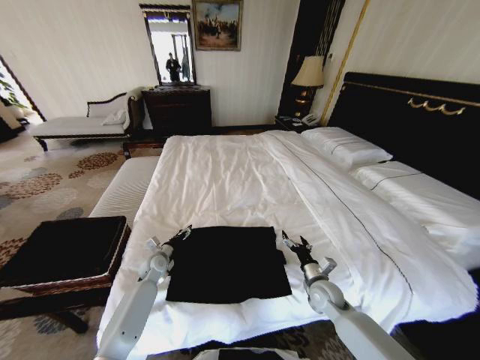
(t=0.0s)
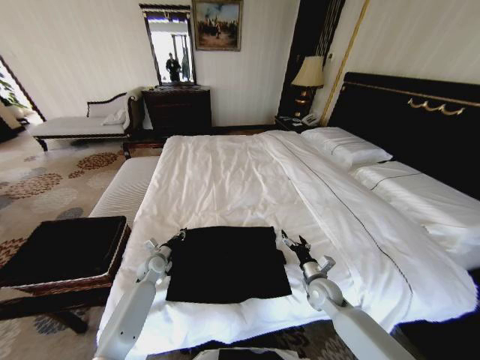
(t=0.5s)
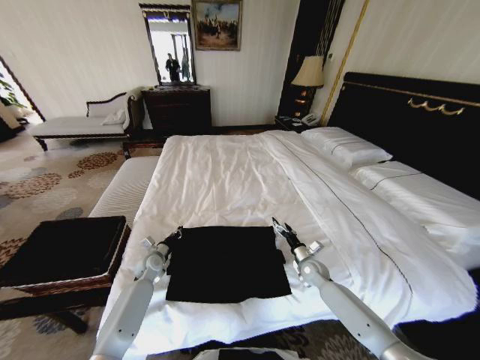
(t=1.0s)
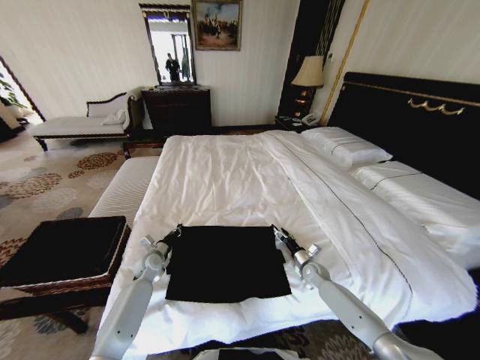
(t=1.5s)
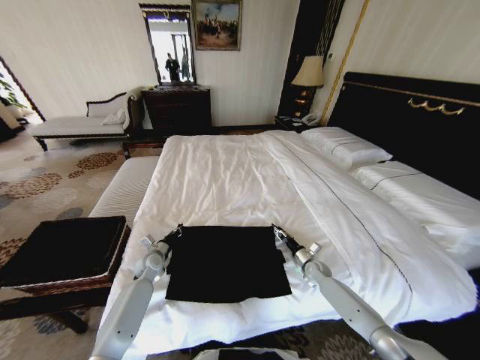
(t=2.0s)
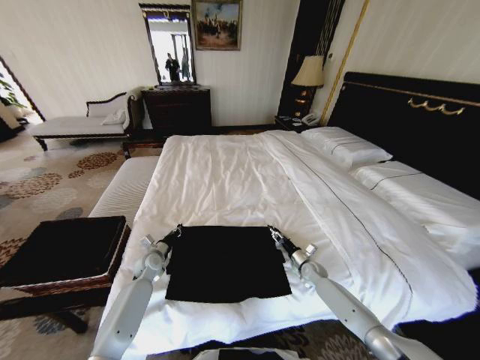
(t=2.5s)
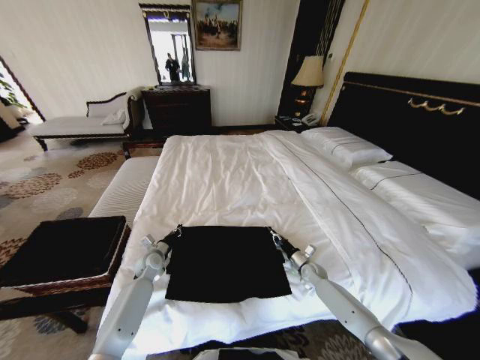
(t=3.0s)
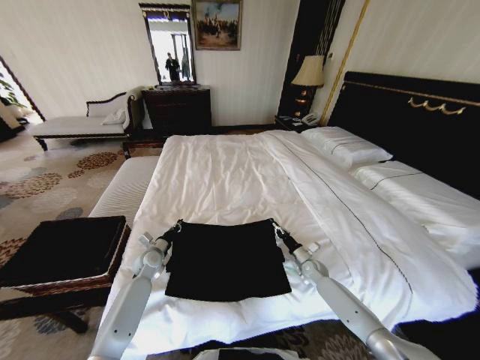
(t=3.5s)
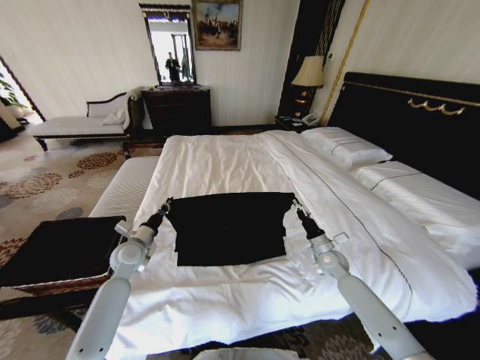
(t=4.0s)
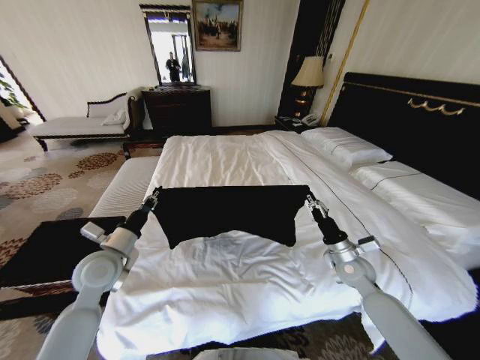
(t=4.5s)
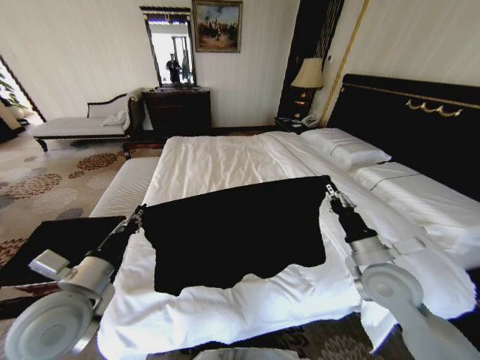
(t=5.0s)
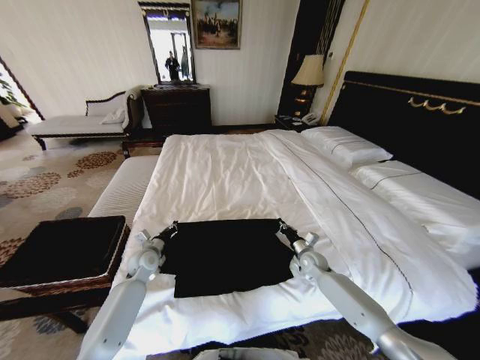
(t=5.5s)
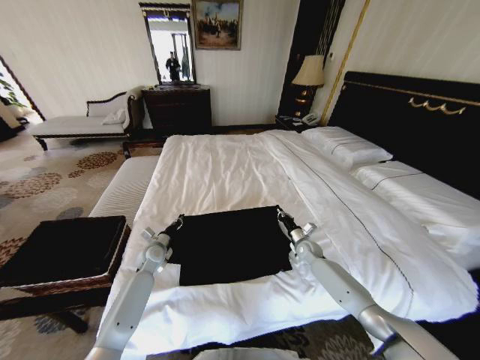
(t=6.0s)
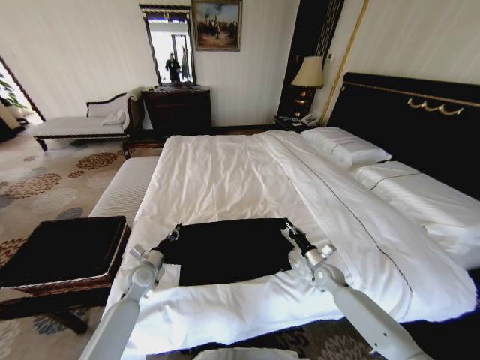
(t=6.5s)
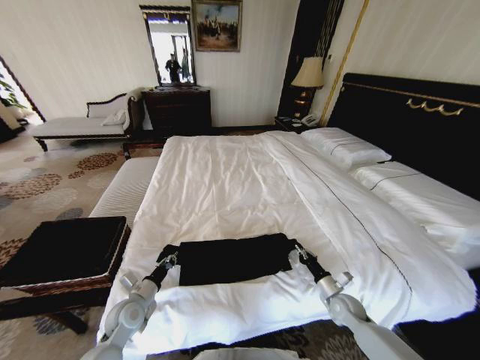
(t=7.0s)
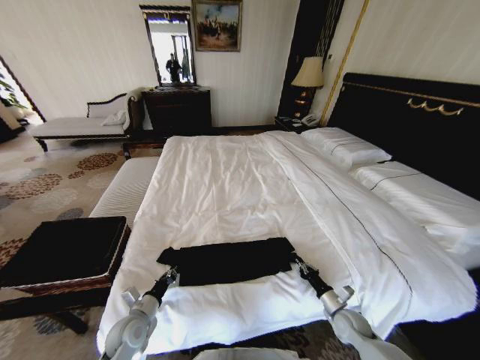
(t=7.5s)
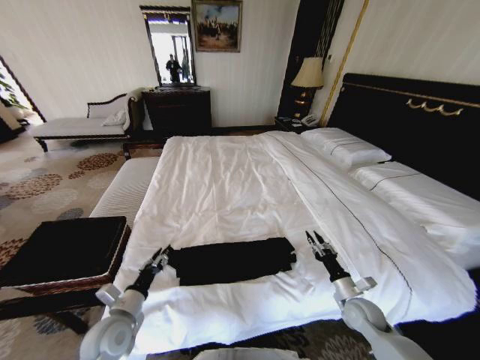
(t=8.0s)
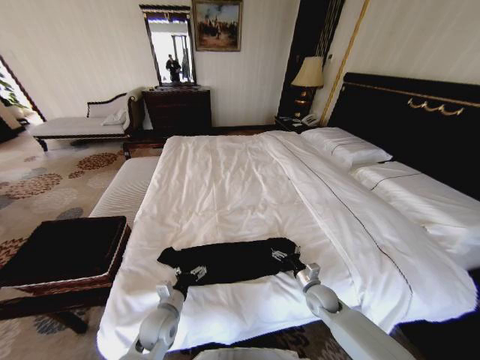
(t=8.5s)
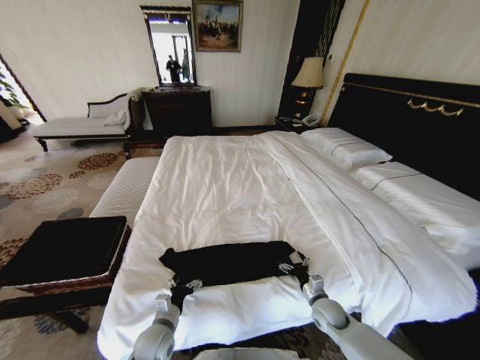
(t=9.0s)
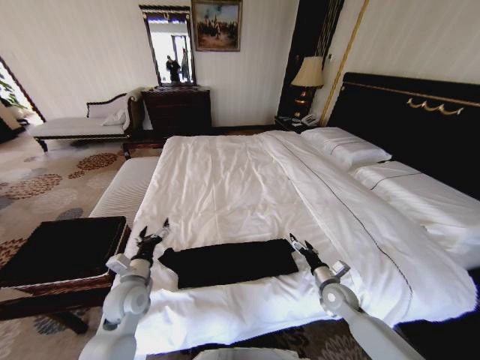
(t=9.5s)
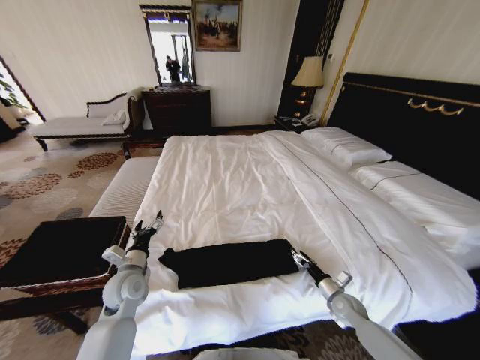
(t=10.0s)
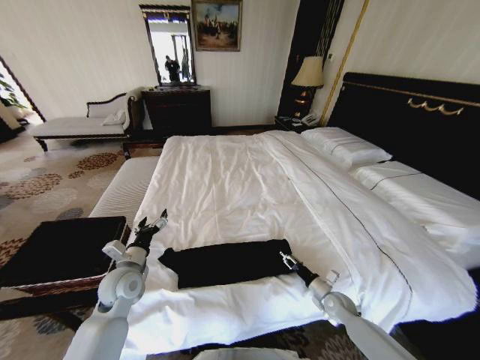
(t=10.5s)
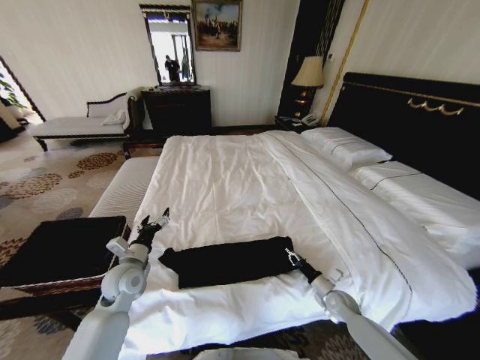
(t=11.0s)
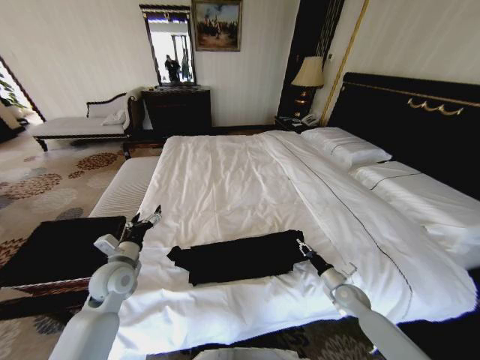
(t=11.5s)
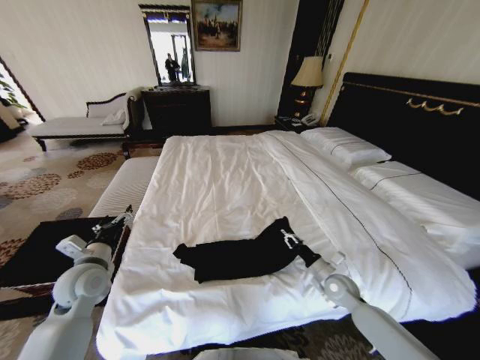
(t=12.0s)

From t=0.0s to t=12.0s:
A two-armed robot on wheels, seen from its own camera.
Task of the whole recording: Fold the clothes on the bed and place them into the basket.
From t=0.0s to t=2.0s: The right gripper goes roughly 15 cm forward, downward and to the right, and closes up, while the left gripper closes its fingers.
From t=2.0s to t=4.0s: Both grippers move upward, about 10 cm. The right gripper closes.
From t=4.0s to t=6.0s: The right gripper goes some 5 cm downward, and reaches some 15 cm backward, then returns. Meanwhile the left gripper goes some 10 cm downward, and reaches about 20 cm backward, then returns.
From t=6.0s to t=8.0s: The two grippers go approximately 25 cm backward. The left gripper opens up, while the right gripper opens up.
From t=8.0s to t=10.0s: The right gripper heads downward, covering about 5 cm, moves roughly 10 cm to the left and comes back, and opens its fingers, while the left gripper goes approximately 10 cm forward, travels downward and back again, some 10 cm each way, and opens.
From t=10.0s to t=12.0s: The left gripper heads to the left and upward, covering approximately 10 cm. The right gripper goes about 10 cm upward, and closes its fingers.

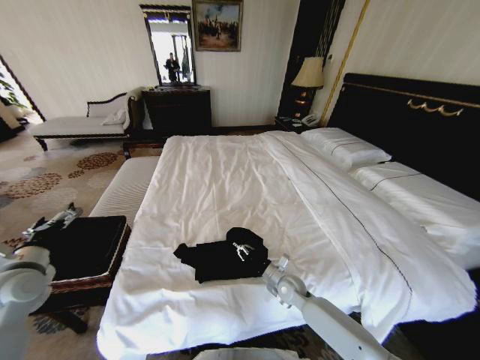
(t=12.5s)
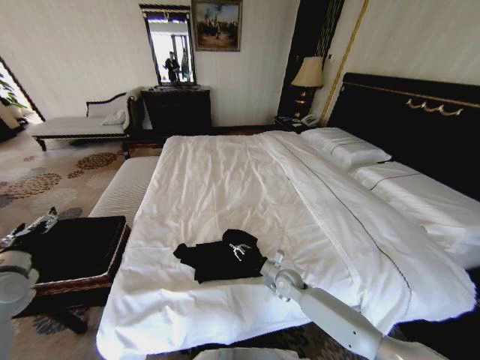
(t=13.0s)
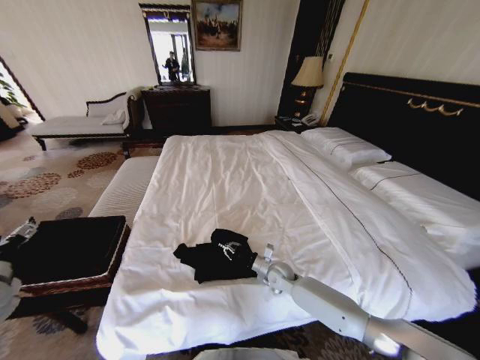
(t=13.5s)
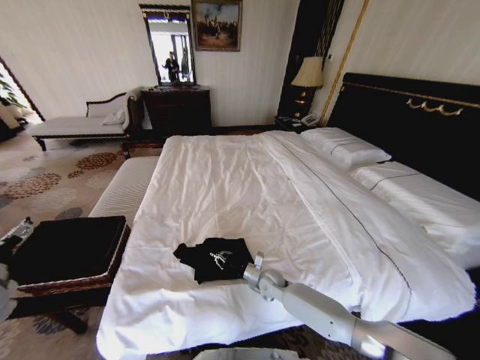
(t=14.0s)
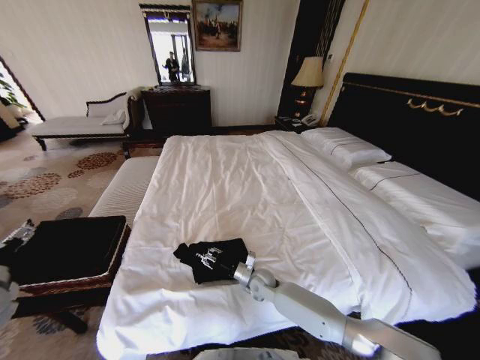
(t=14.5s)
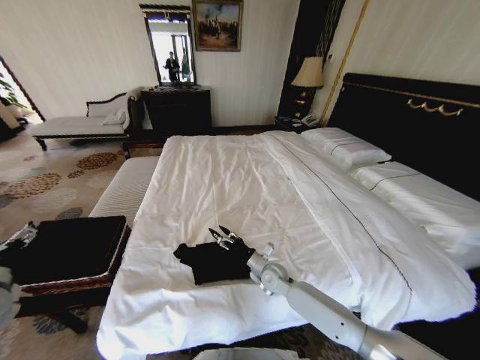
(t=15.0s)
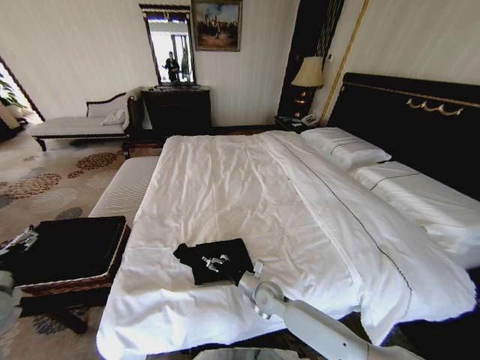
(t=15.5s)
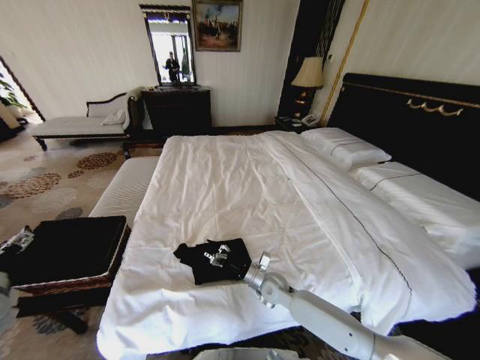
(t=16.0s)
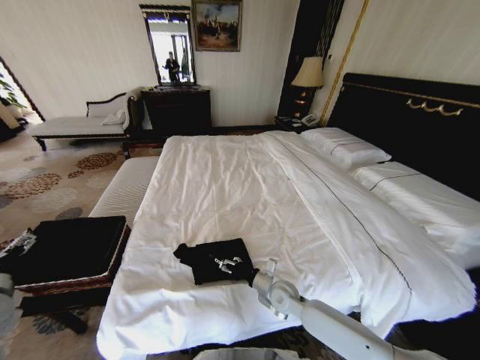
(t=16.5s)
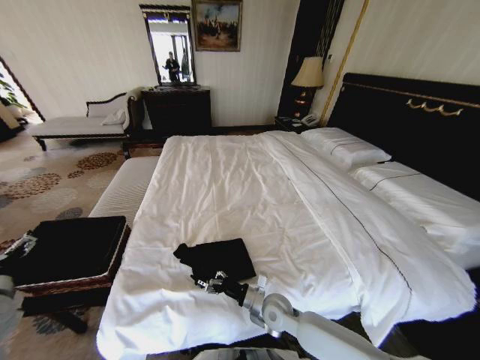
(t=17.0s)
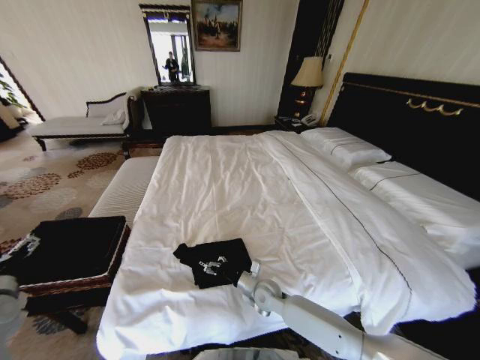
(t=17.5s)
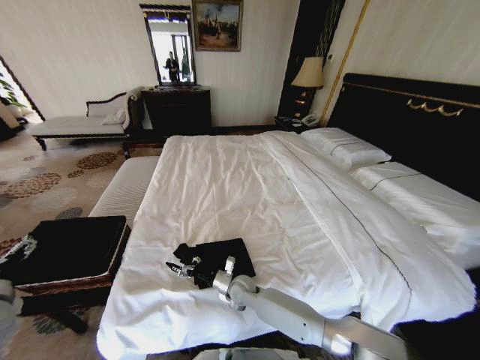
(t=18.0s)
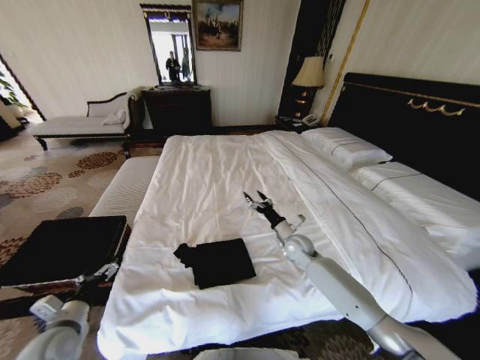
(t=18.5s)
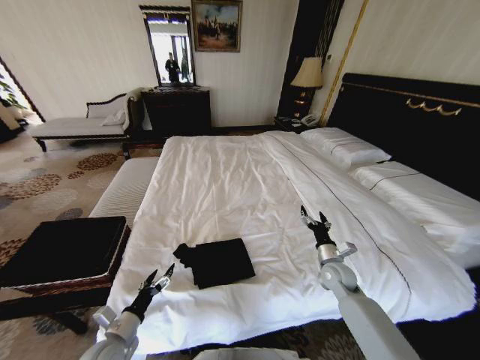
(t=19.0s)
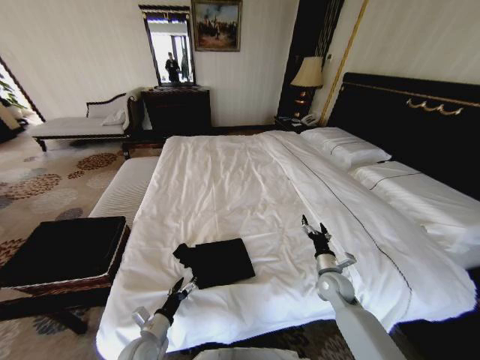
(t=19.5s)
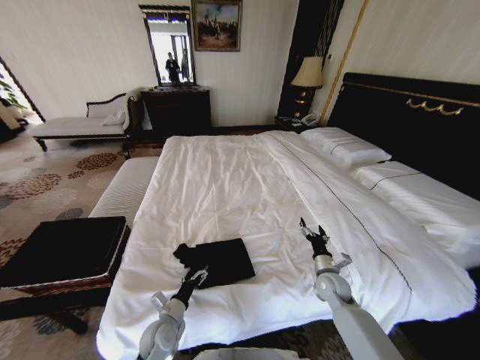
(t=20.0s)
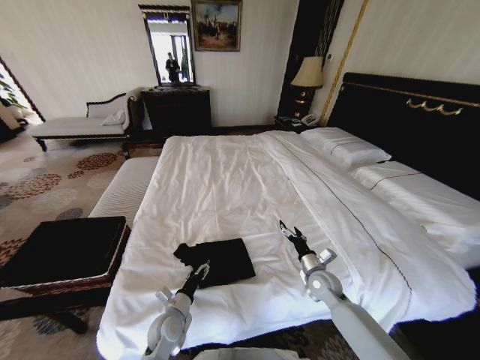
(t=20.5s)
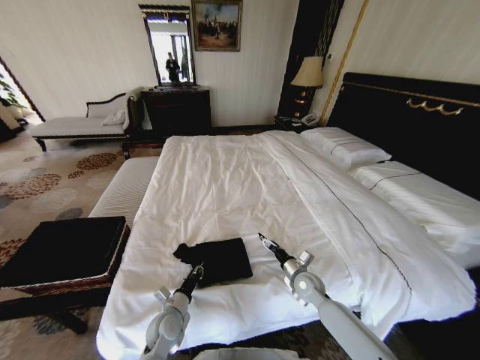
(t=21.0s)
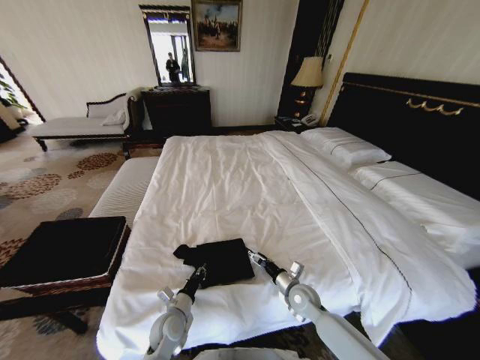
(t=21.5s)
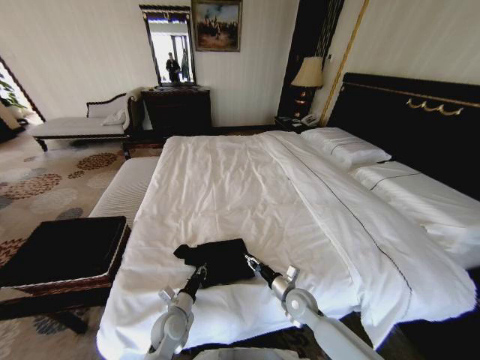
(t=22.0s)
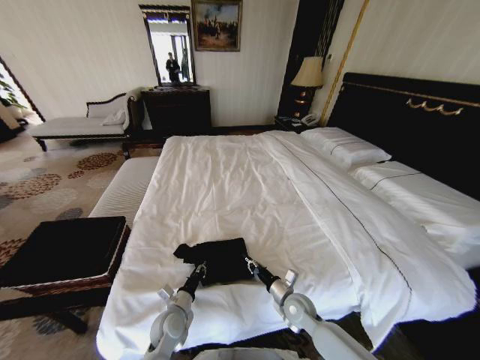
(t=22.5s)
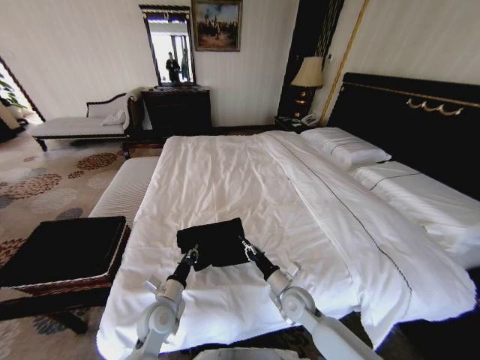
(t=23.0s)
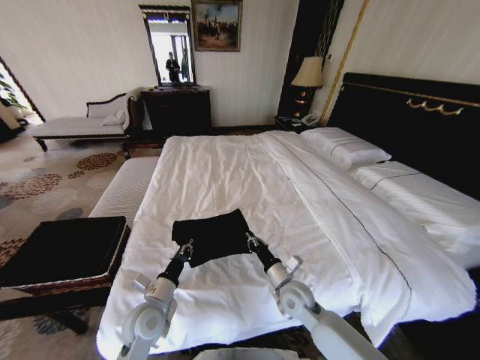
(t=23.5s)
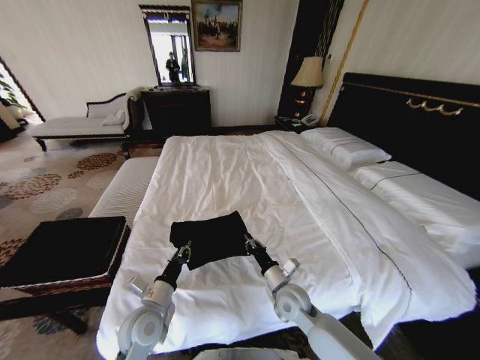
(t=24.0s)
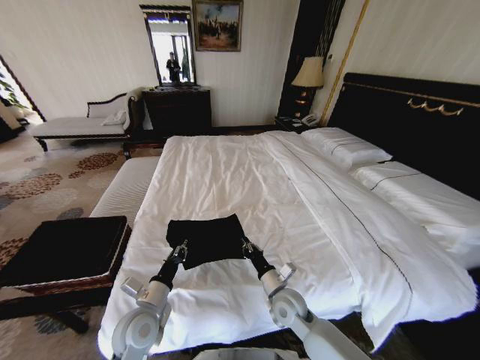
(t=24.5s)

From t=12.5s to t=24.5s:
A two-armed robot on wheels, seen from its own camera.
Task of the whole recording: Fold the clothes on the bed and place them into the basket.
From t=12.5s to t=14.5s: Both grippers move to the left, roughly 10 cm.
From t=14.5s to t=16.5s: The right gripper shifts approximately 10 cm to the right and backward, and opens up.
From t=16.5s to t=18.5s: The right gripper goes roughly 20 cm forward, to the right and upward; the left gripper shifts some 15 cm to the right and downward.
From t=18.5s to t=20.5s: The right gripper heads backward, to the right and downward, covering about 15 cm; the left gripper travels to the right and downward by roughly 25 cm.
From t=20.5s to t=22.5s: The left gripper closes its fingers, while the right gripper moves to the left and backward, roughly 10 cm, and closes.
From t=22.5s to t=24.5s: The left gripper travels upward by roughly 15 cm. Meanwhile the right gripper heads upward and to the left, covering roughly 10 cm.

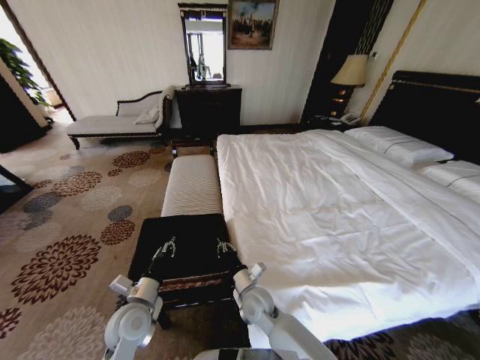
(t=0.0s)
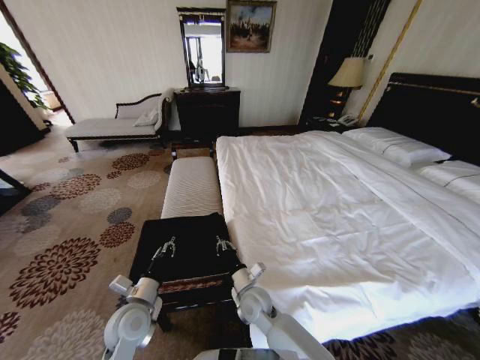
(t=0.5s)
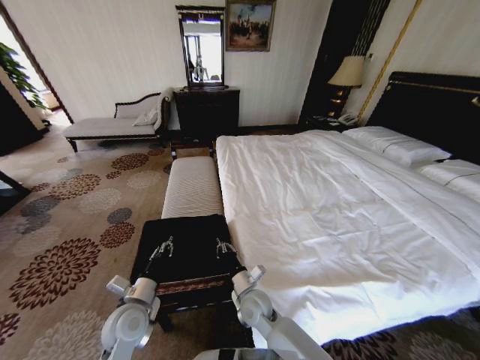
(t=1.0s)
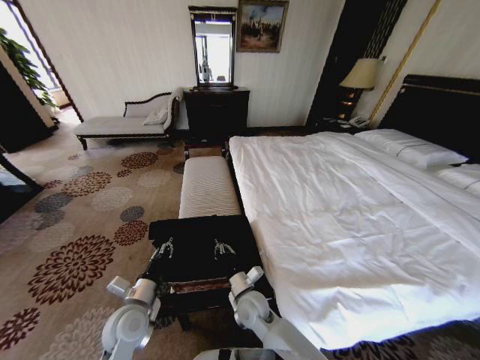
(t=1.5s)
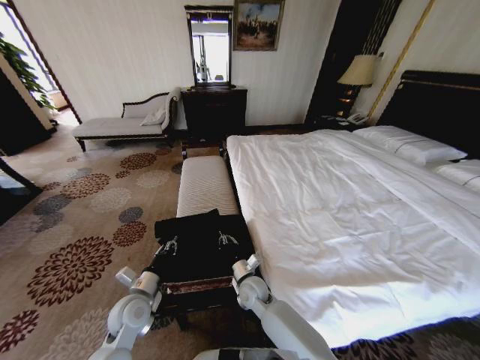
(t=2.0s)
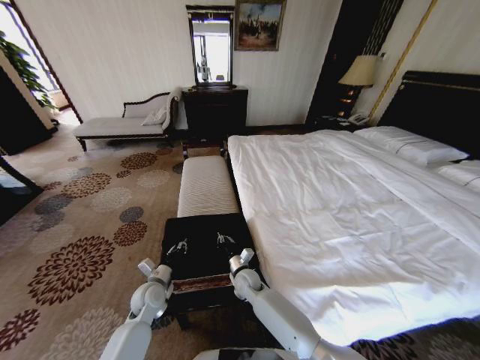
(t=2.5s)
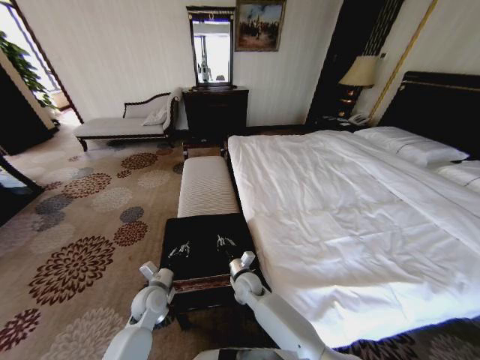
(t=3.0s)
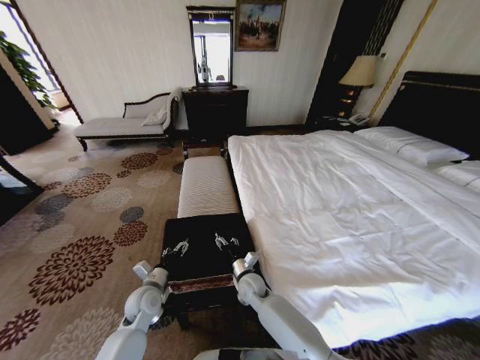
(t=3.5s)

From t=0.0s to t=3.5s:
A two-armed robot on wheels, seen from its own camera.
Task of the whole recording: Fold the clothes on the bed and place them into the basket.
From t=2.0s to t=3.5s: The left gripper ends up about 5 cm from where it was, and opens up; the right gripper opens its fingers.
